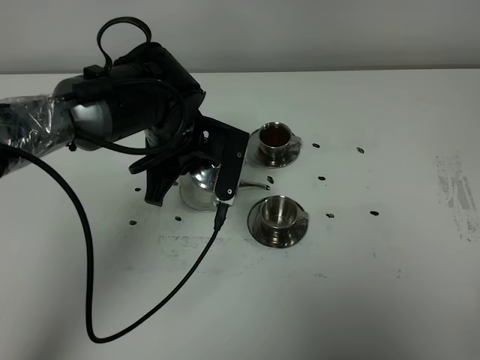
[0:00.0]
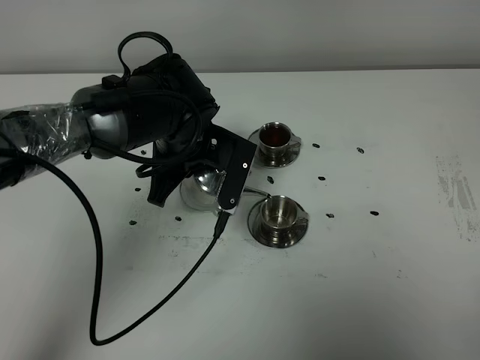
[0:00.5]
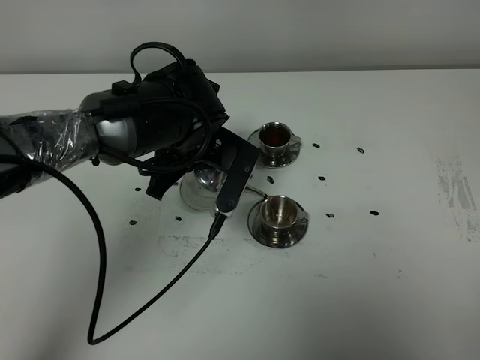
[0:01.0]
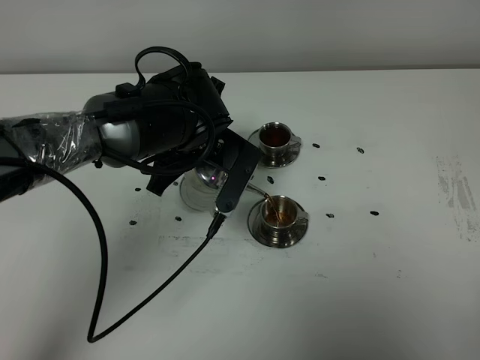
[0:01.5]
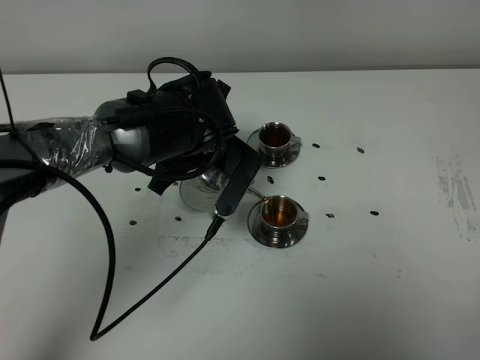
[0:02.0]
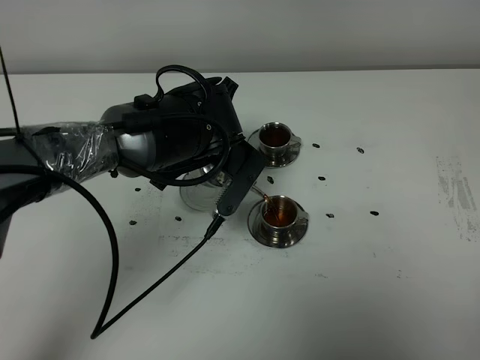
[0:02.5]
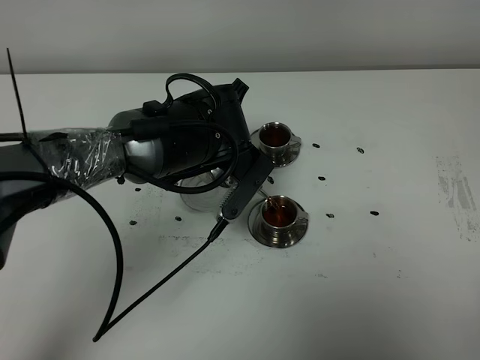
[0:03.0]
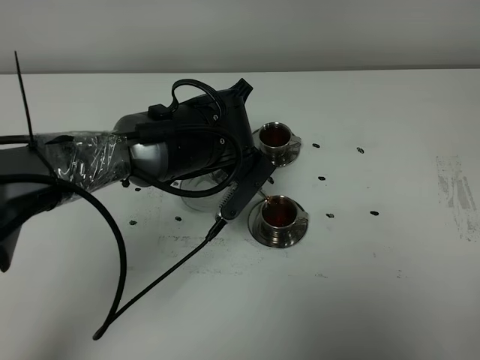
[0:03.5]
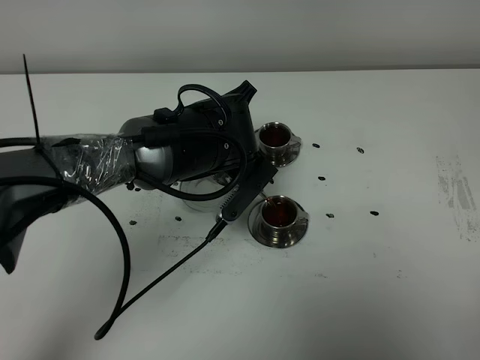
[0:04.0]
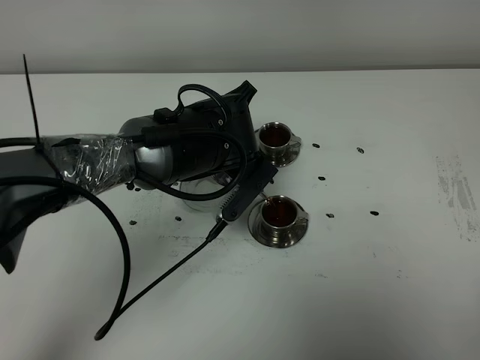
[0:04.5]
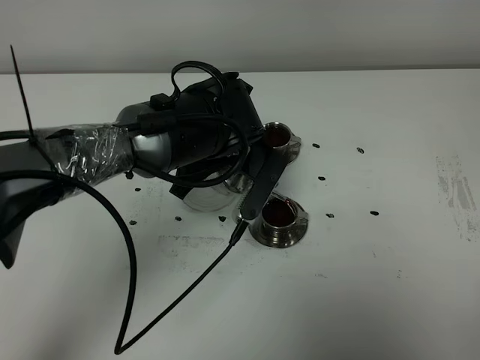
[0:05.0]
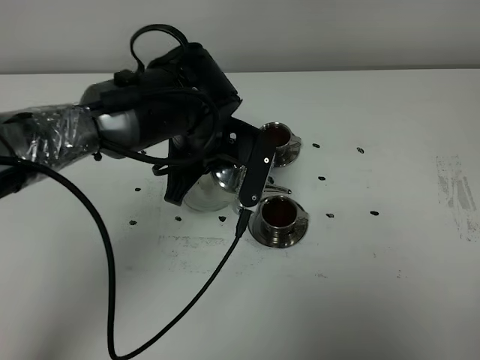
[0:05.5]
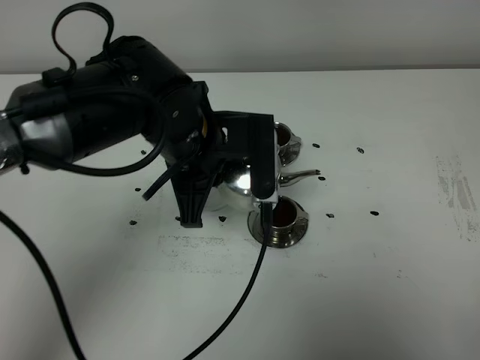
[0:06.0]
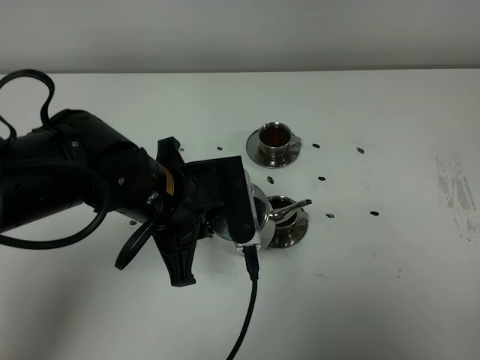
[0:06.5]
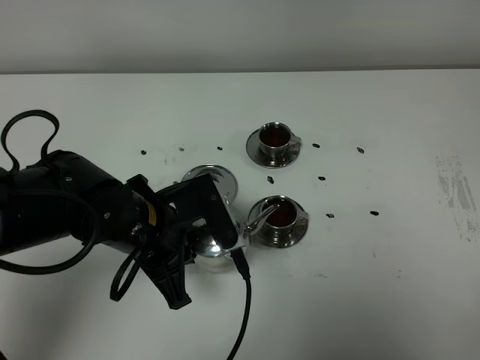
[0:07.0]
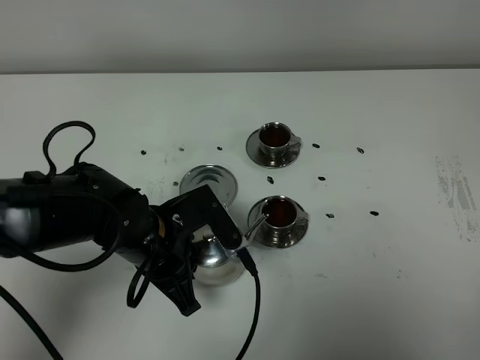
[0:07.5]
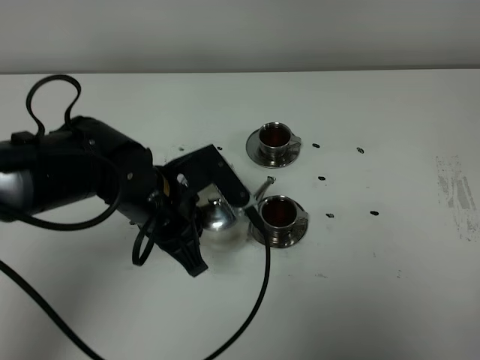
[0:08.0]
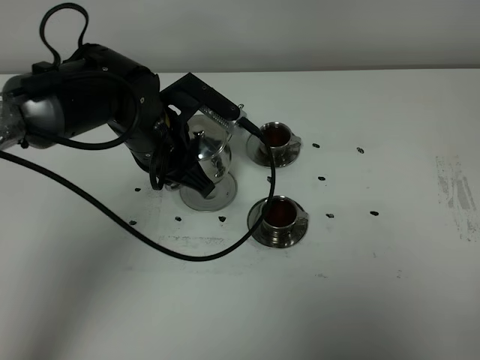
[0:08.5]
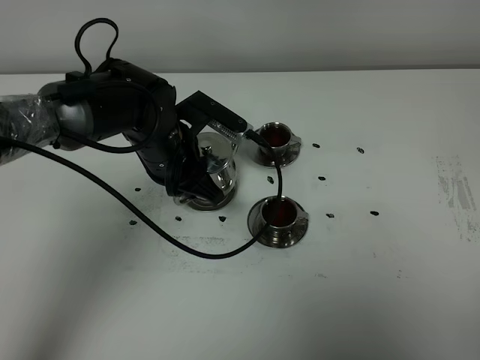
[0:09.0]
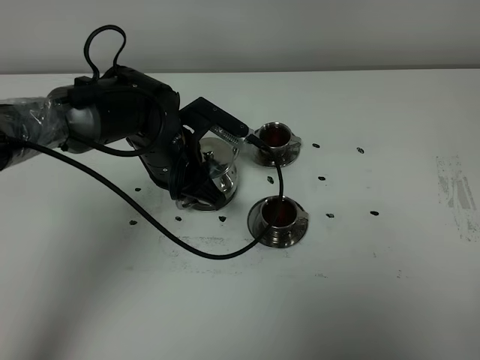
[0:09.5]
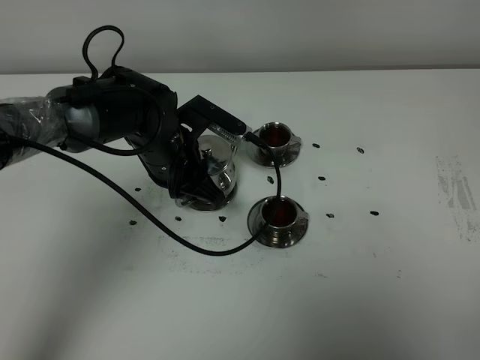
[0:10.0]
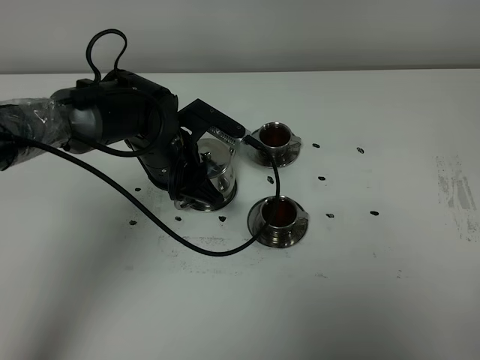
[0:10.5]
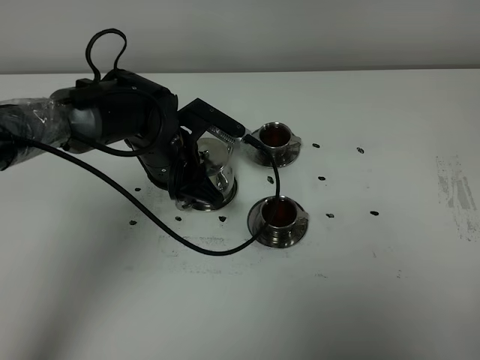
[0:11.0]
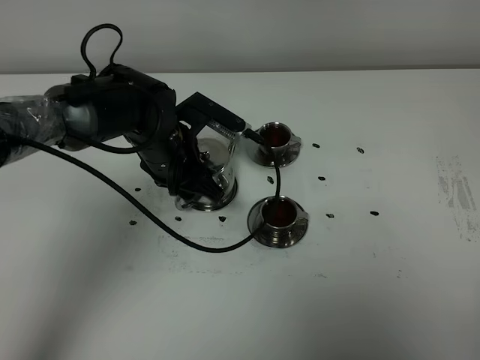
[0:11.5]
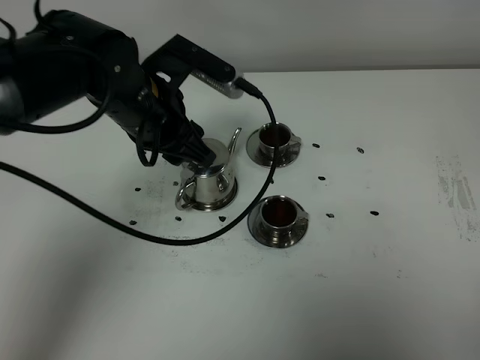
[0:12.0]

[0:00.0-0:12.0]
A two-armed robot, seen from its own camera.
Task of the whole recording: grasp the stainless steel teapot and pour the tea into the two stainless steel teacups one by one, put the stainless steel teapot back in its original place.
Step, 0:00.0 to 0:05.0: Pour tea into the teacup with the left gripper.
0:02.0 to 0:04.0: The grippers make only small movements.
0:04.0 to 0:06.0: The left gripper changes place by about 5 cm.
0:06.0 to 0:08.0: The left gripper shifts approximately 5 cm downward.
0:08.0 to 0:10.0: The left gripper travels forward by some 10 cm.
0:10.0 to 0:12.0: The left gripper heads upward, covering roughly 10 cm, and opens.

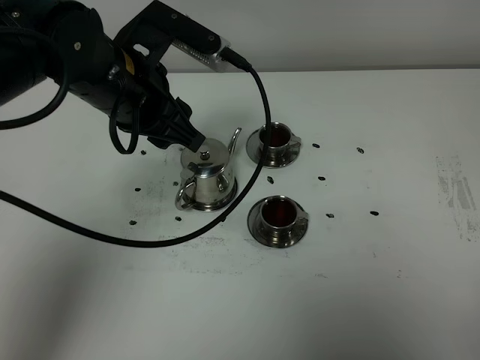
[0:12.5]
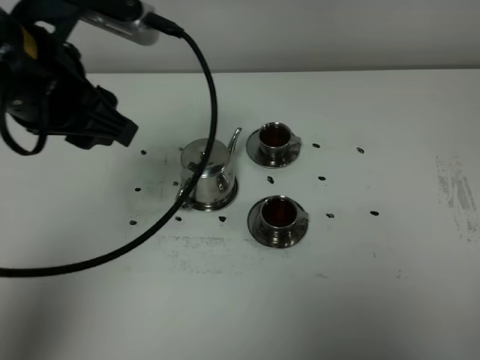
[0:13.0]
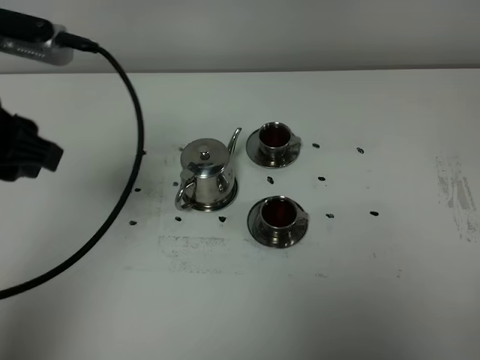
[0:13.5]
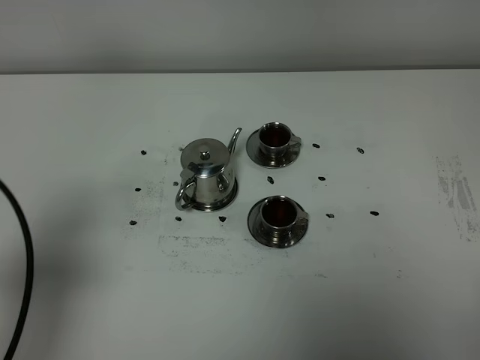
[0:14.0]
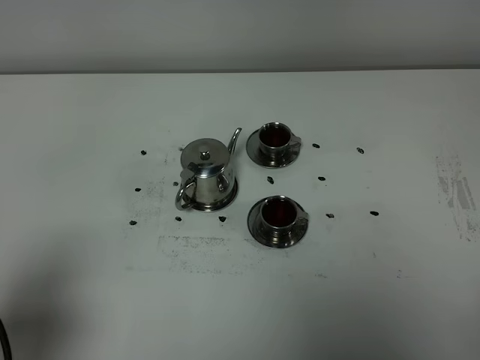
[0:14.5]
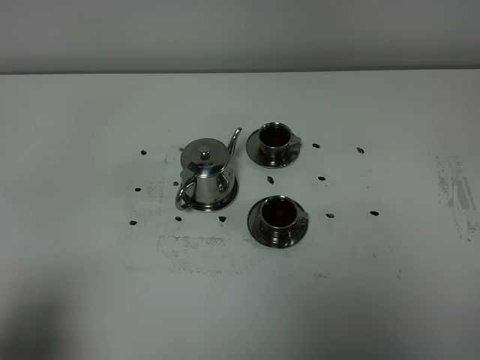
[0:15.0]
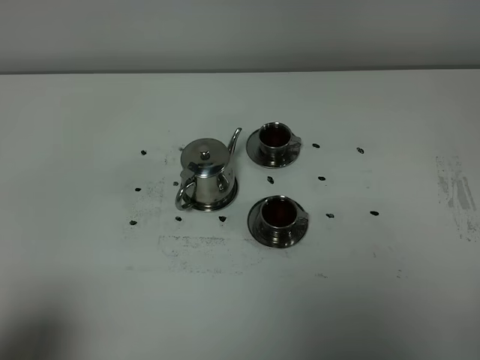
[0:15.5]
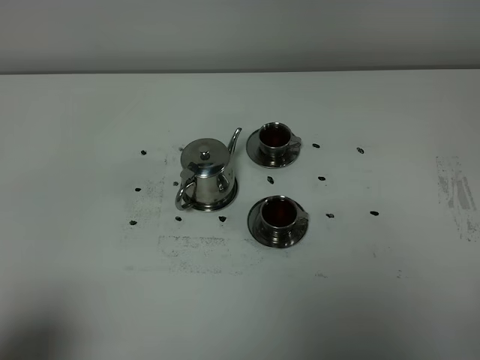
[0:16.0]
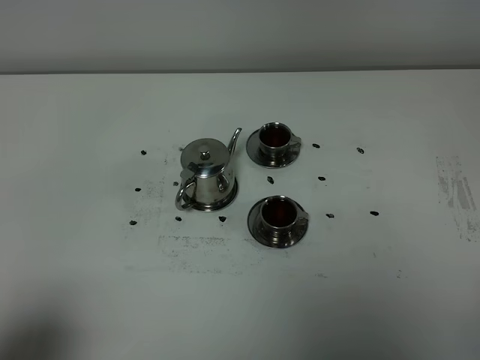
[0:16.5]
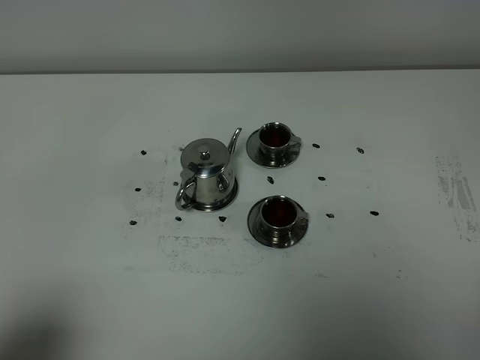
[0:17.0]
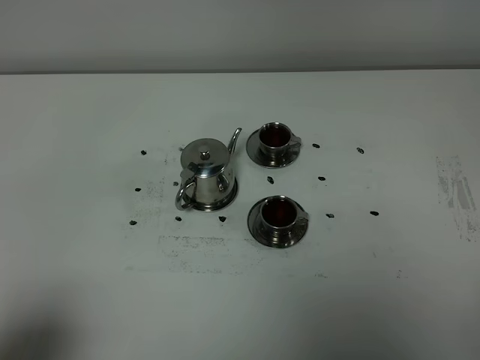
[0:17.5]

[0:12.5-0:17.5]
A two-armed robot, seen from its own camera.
Task of the whole recording: grasp the stainless steel teapot and pour the tea into the two stainless steel teacups one by one, put the stainless steel teapot back in its original place.
0:12.5 to 0:15.0: The left gripper heads backward and to the left, covering about 35 cm.

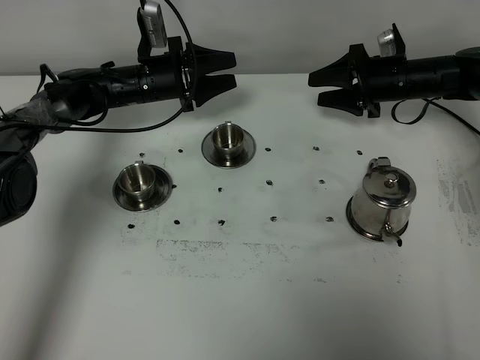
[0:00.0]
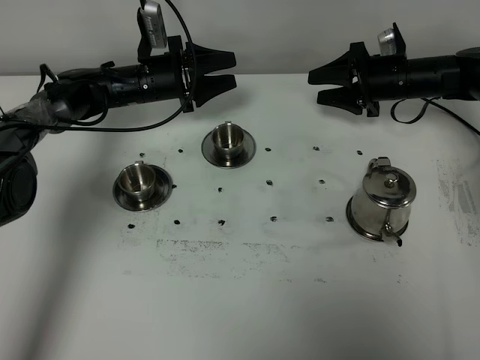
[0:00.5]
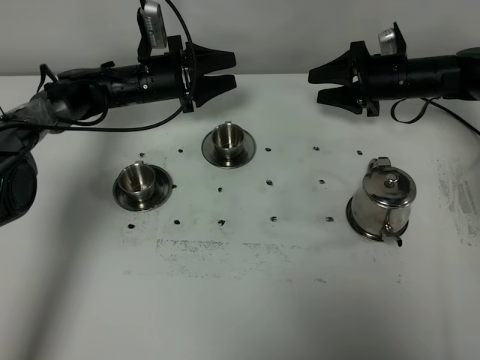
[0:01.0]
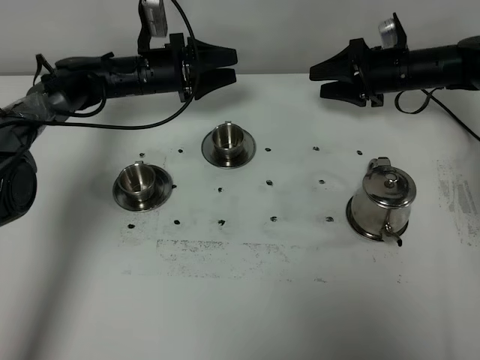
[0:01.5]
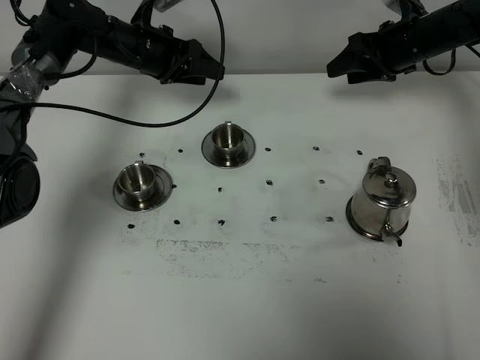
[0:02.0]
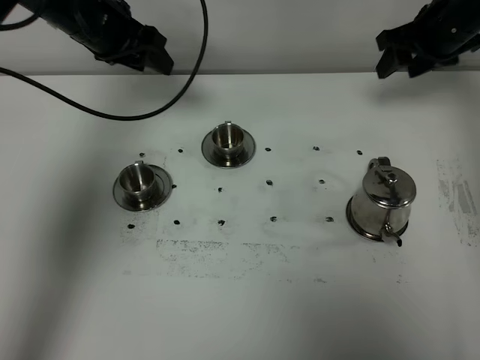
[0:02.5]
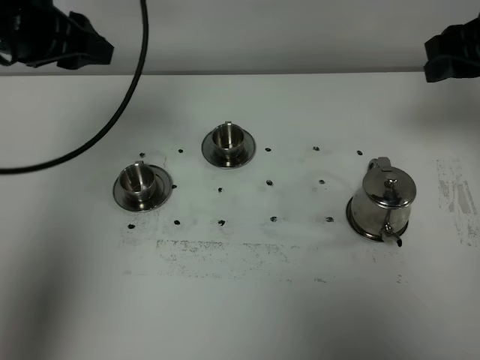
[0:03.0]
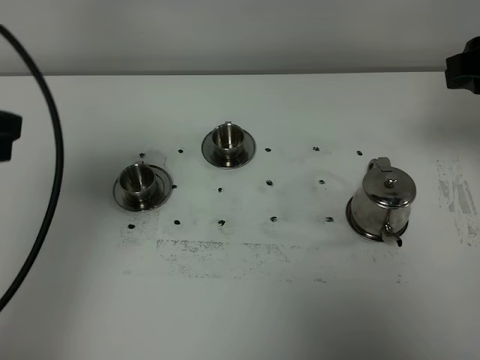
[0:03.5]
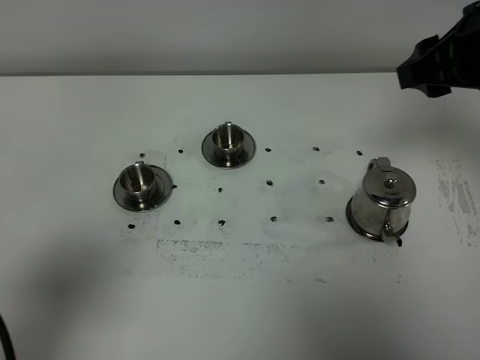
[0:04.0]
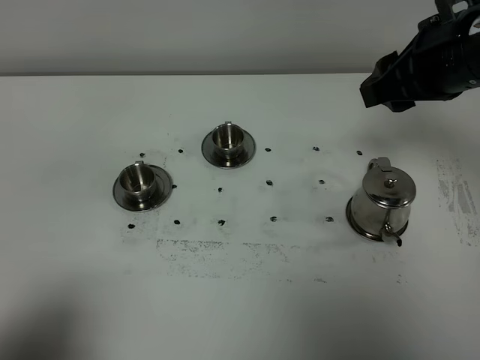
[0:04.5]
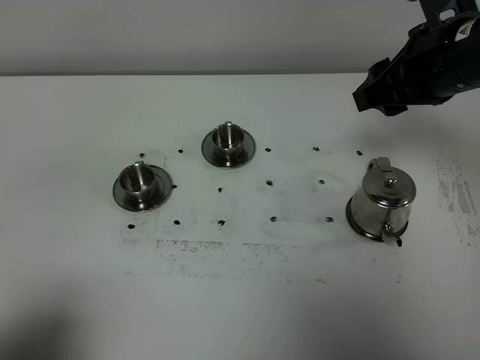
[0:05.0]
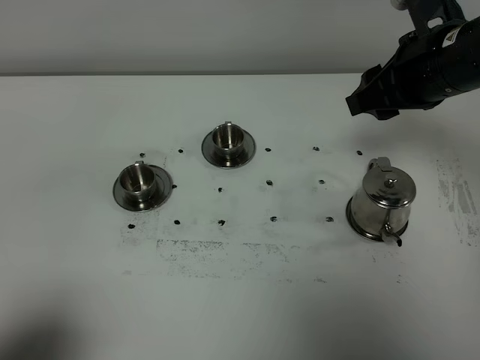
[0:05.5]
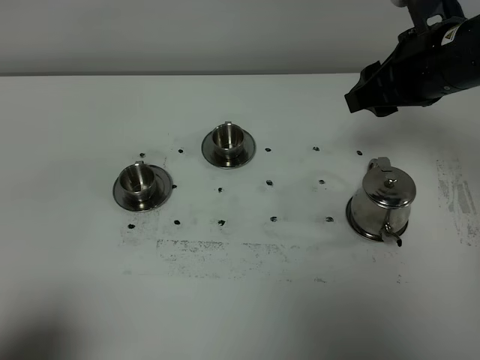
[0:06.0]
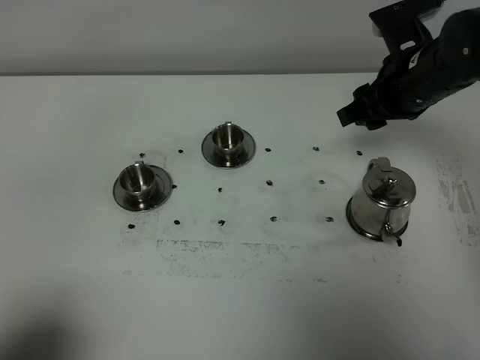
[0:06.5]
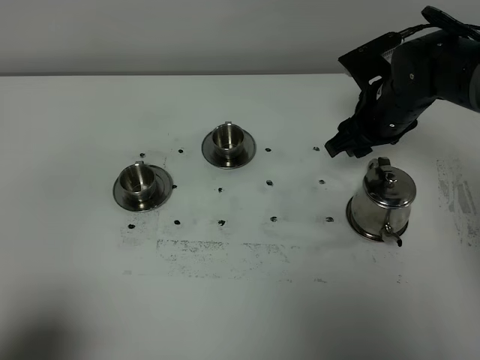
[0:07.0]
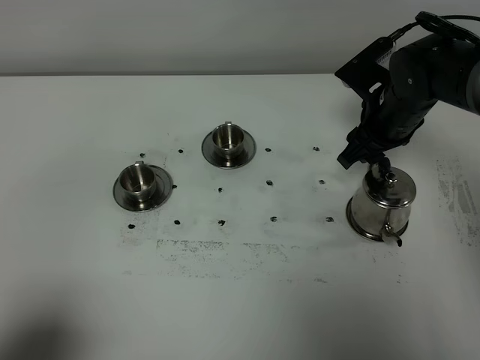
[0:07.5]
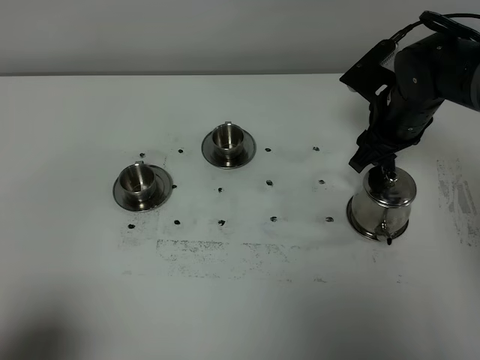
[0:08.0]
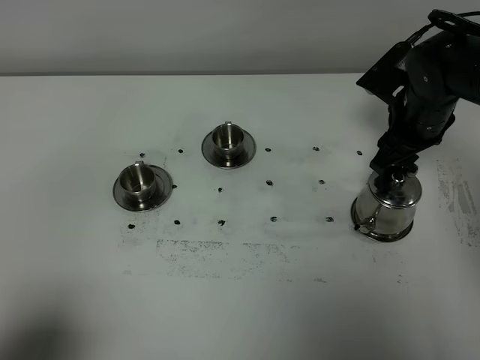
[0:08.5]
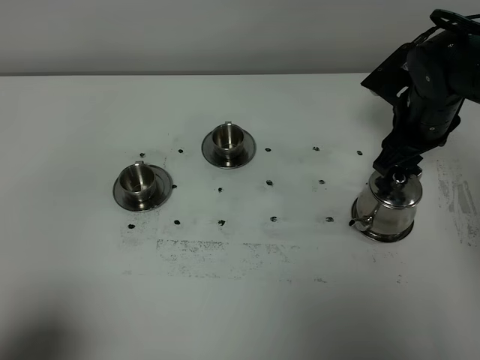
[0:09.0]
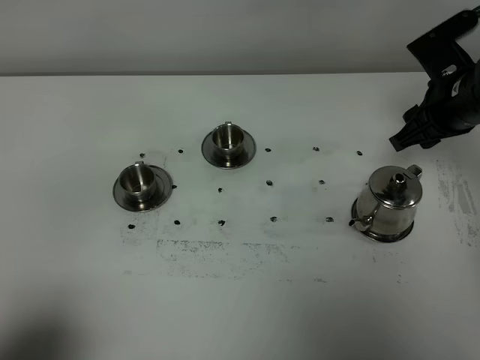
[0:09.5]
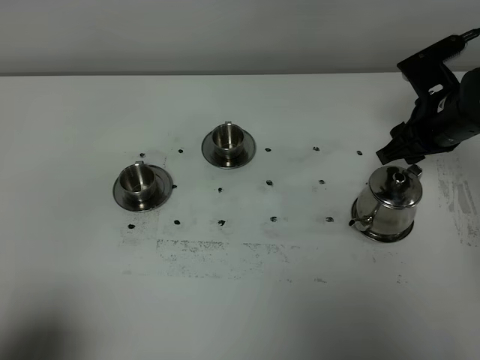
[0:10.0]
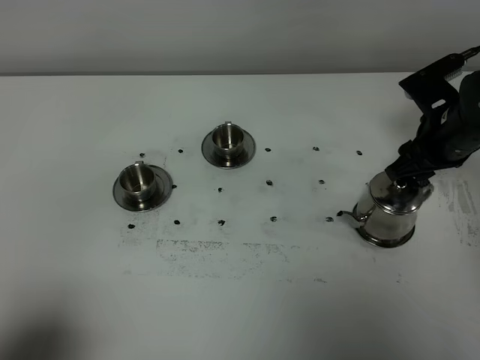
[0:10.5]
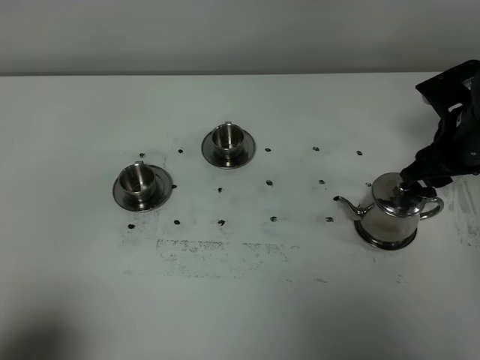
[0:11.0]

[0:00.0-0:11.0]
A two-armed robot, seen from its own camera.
Task of the whole recording: grasp the stainless steel teapot and pour the tea into the two stainless steel teacups one by one, put the stainless steel teapot back in its original place.
0:00.0 to 0:02.0: The two grippers go about 5 cm upward.
0:02.0 to 0:03.5: The grippers both shift backward and upward by some 35 cm.
0:03.5 to 0:05.5: The left gripper is displaced backward and downward by about 20 cm. Meanwhile the right gripper is displaced to the left by about 10 cm.
0:05.5 to 0:07.5: The right gripper is displaced downward and forward by about 15 cm.
0:07.5 to 0:09.0: The grippers make only small movements.
0:09.0 to 0:11.0: The right gripper ends up approximately 5 cm from where it was.
